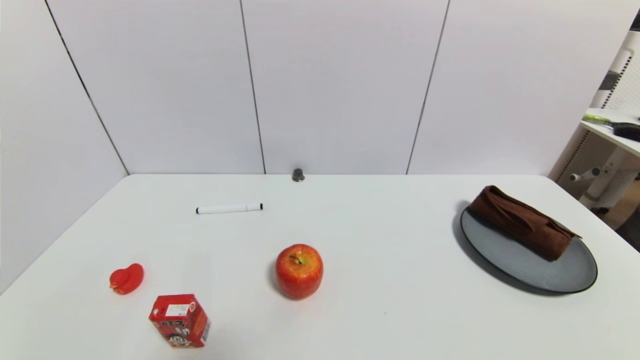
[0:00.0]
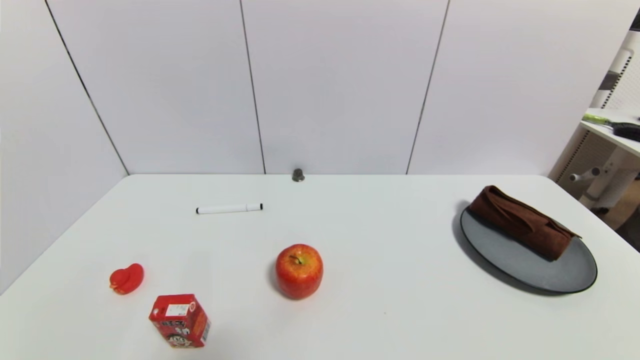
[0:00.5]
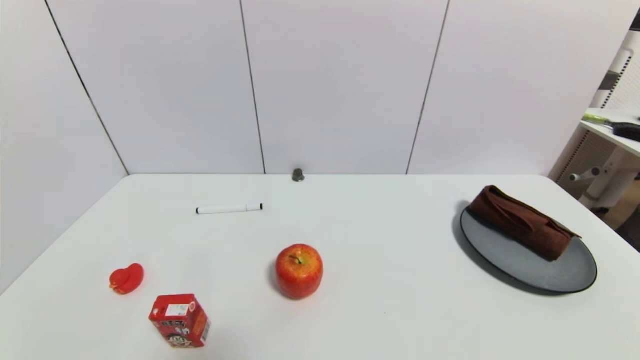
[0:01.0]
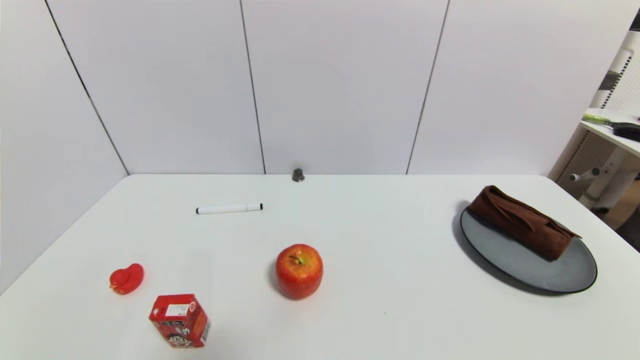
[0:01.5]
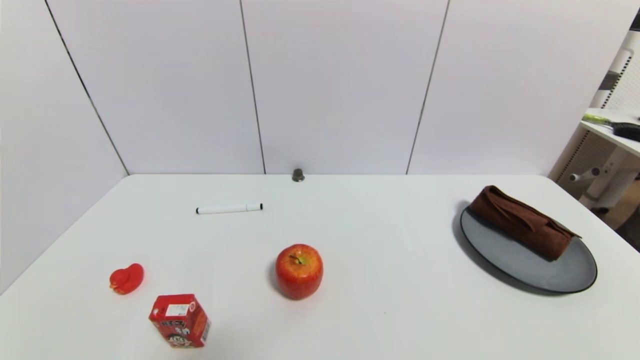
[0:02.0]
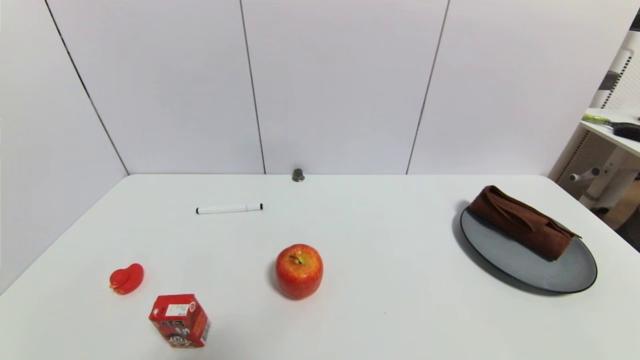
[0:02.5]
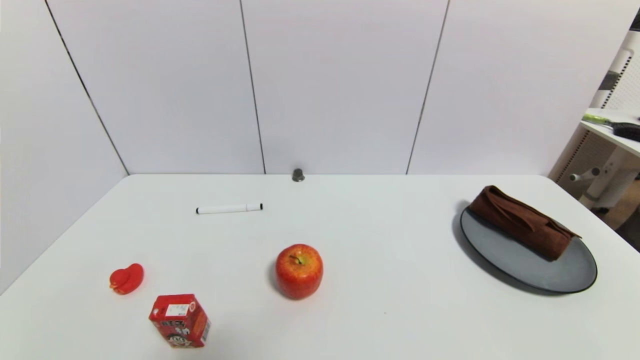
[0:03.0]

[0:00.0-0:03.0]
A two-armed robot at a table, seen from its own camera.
Task of the whole recording: use a gripper to pick the target object and place on the gray plate.
0:01.5 to 0:03.0: Both grippers stay put.

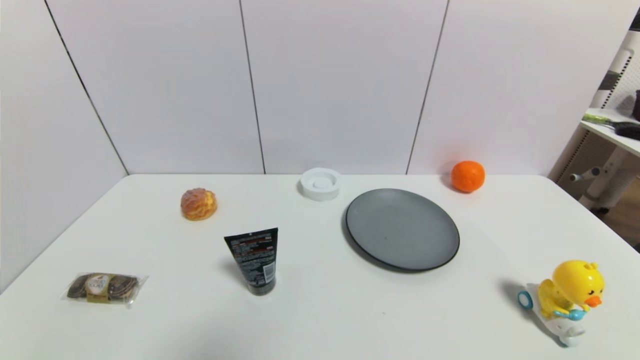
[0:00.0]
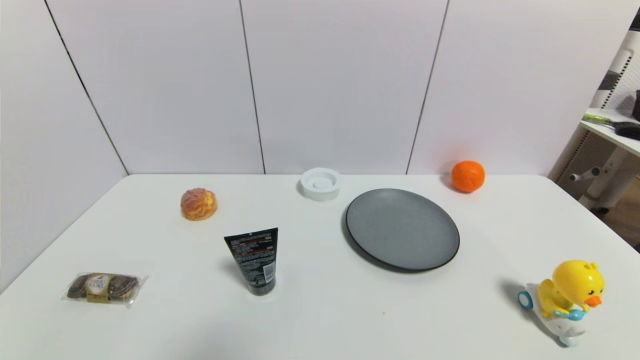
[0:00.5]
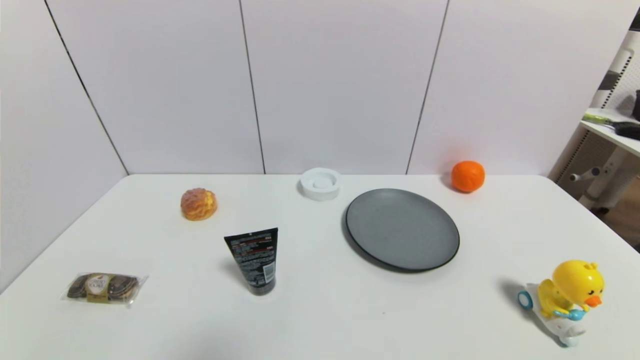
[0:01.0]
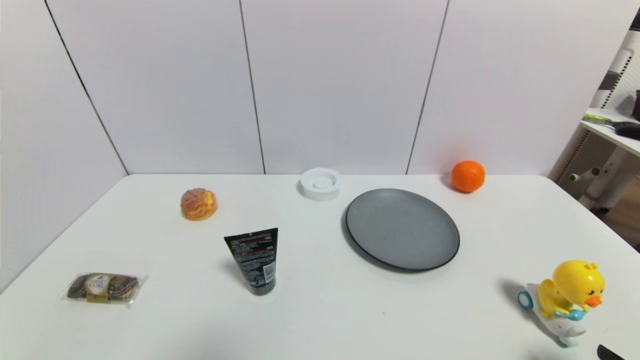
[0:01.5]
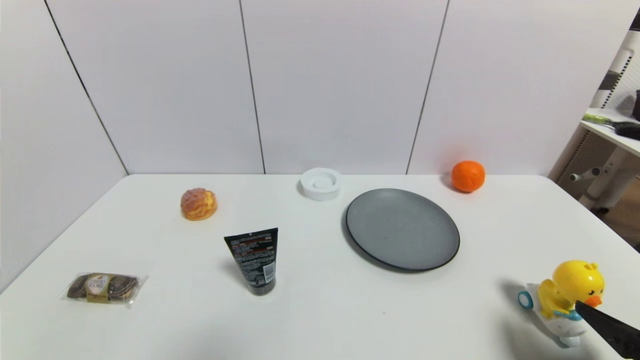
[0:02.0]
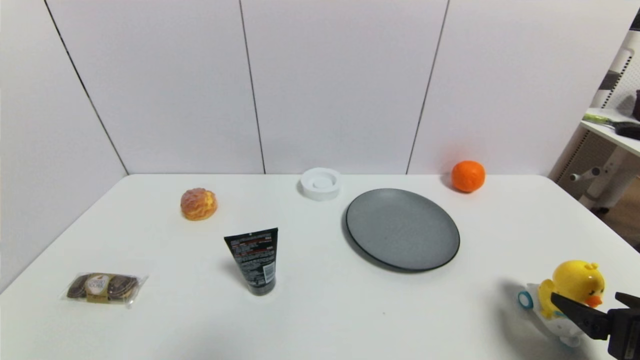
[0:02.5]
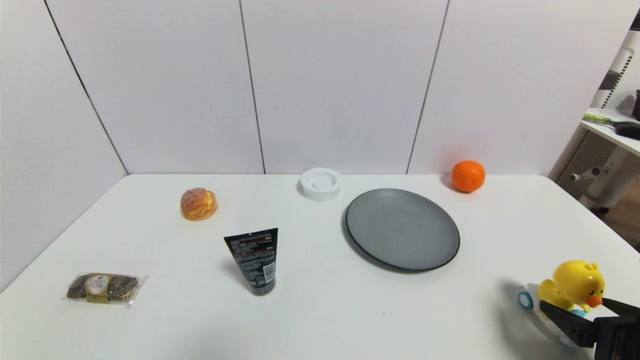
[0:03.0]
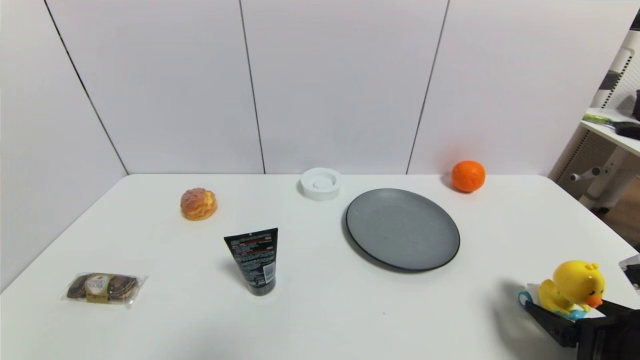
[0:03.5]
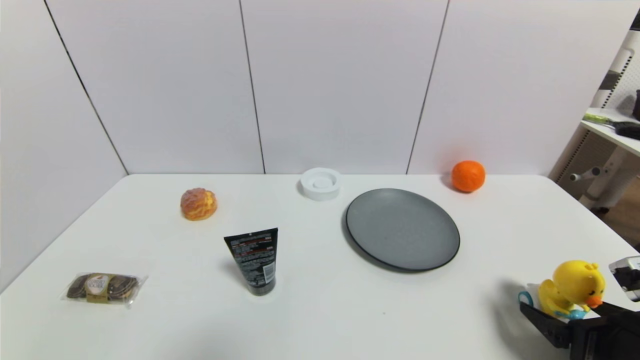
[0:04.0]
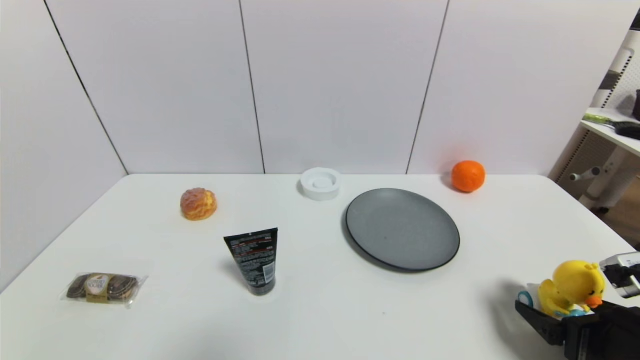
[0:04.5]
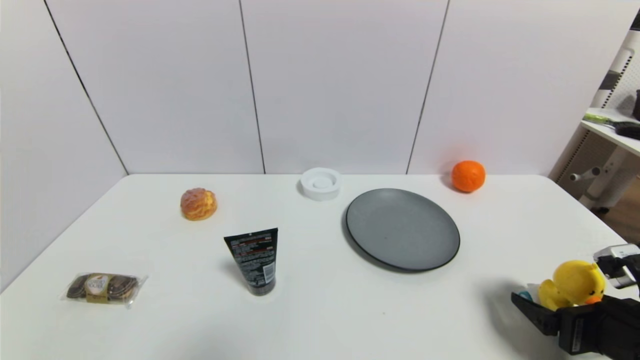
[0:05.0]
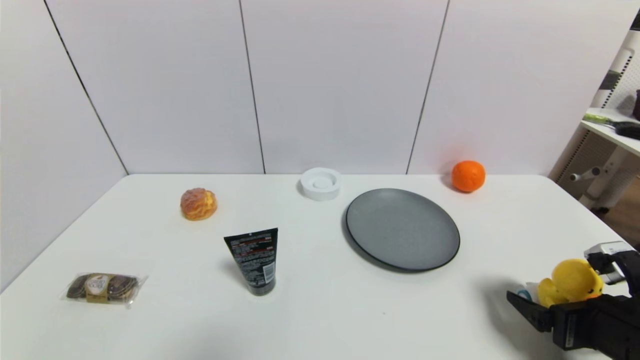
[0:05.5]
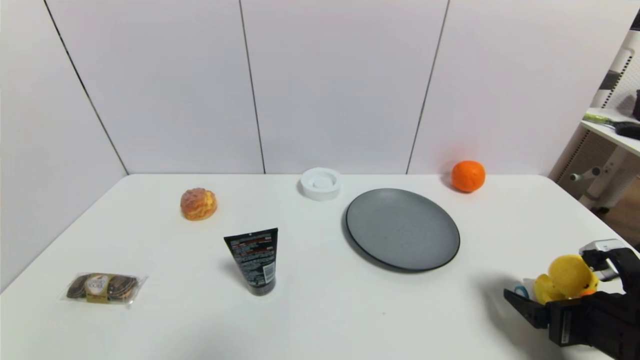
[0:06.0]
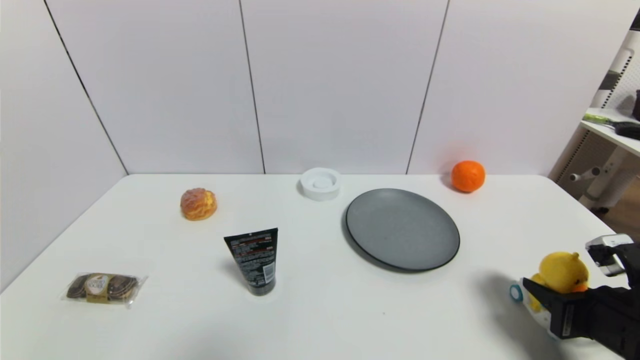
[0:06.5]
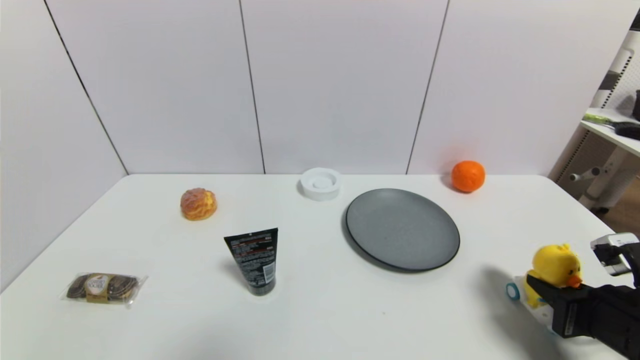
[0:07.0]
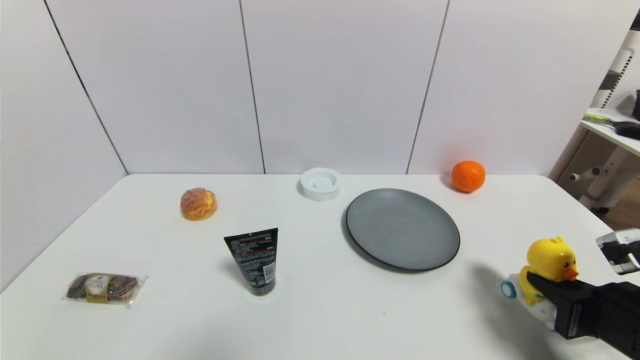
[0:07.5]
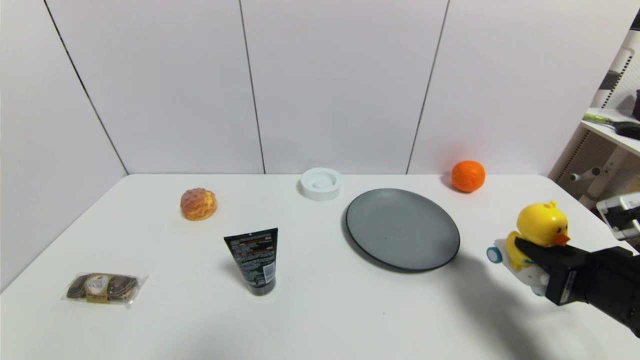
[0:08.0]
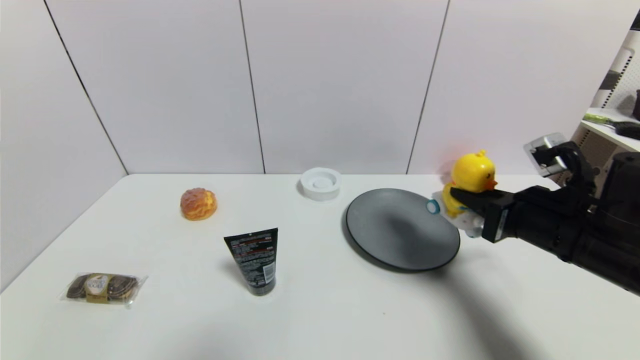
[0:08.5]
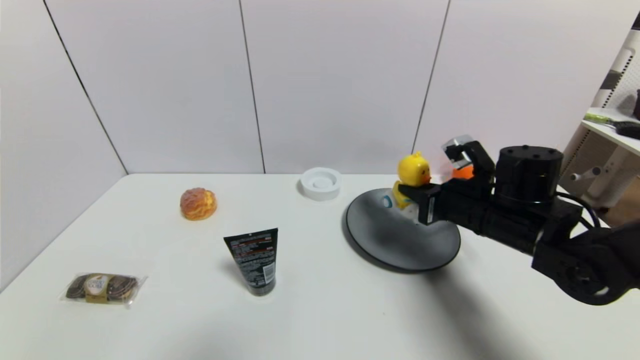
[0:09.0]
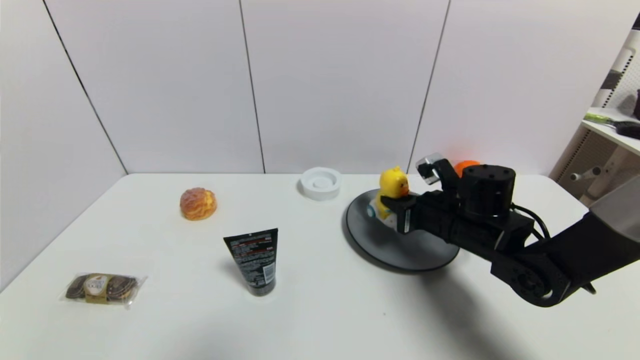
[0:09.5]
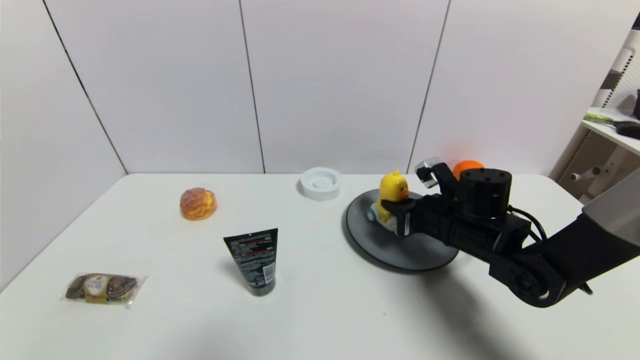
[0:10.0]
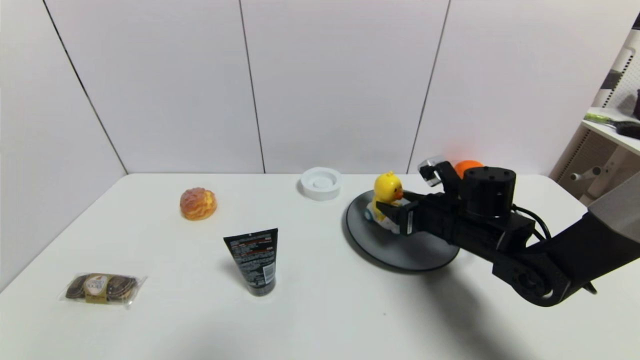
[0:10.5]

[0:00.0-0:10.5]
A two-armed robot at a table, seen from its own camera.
Task of the whole recording: use a gripper to pick the target object and place on the gray plate.
Step, 0:00.0 to 0:06.0: Grasp the duck toy with the right gripper.
0:00.0 to 0:02.0: The right gripper shifts some 10 cm forward and upward.
0:02.0 to 0:04.0: The right gripper ends up about 5 cm from where it was.
0:04.0 to 0:06.5: The right gripper closes.
0:06.5 to 0:08.5: The right gripper goes some 15 cm forward, upward and to the left.
0:08.5 to 0:10.5: The right gripper moves forward, downward and to the left, approximately 10 cm, and opens up.

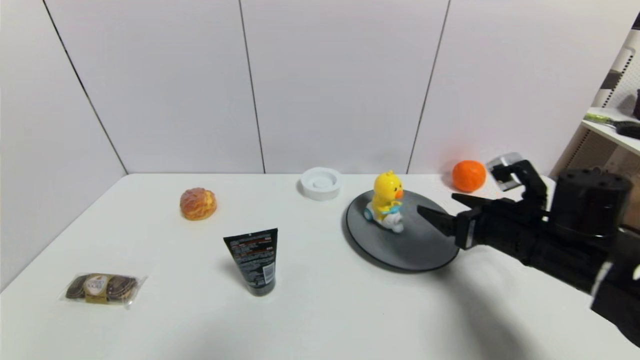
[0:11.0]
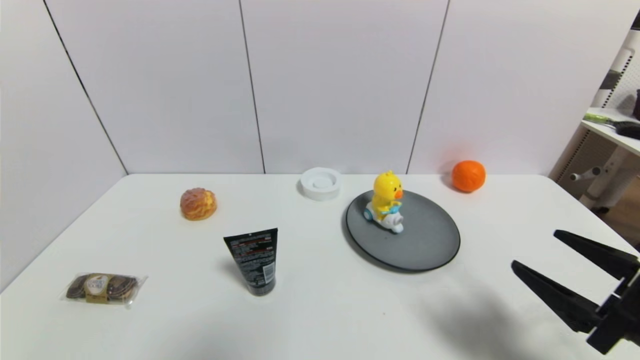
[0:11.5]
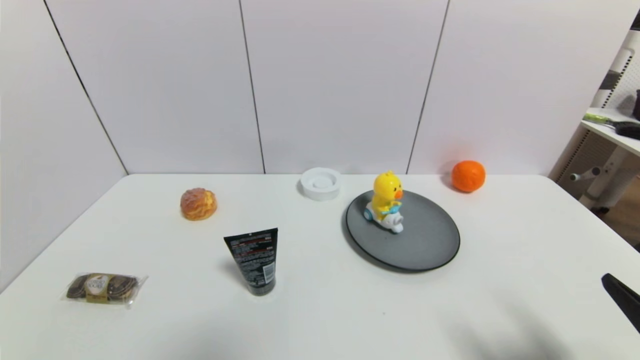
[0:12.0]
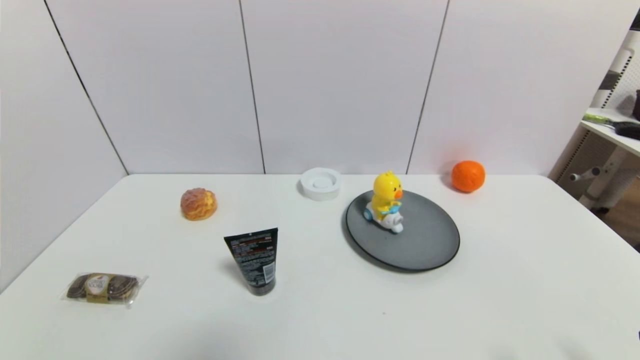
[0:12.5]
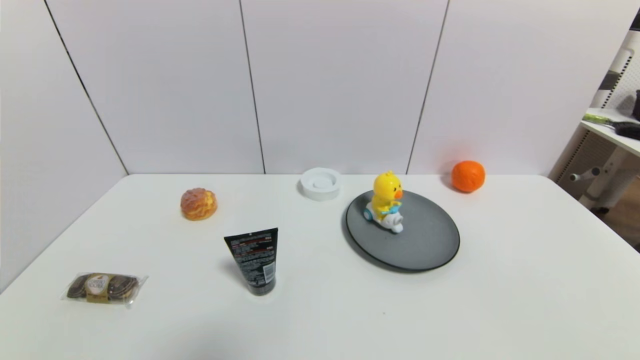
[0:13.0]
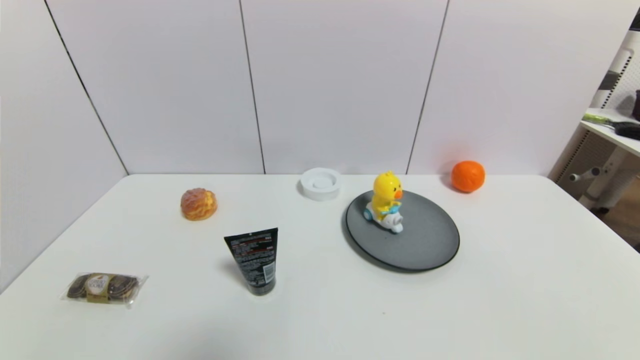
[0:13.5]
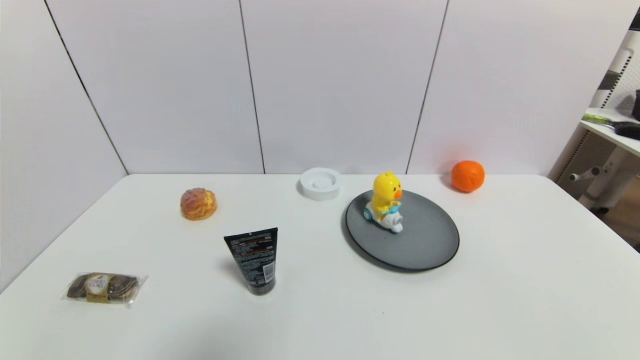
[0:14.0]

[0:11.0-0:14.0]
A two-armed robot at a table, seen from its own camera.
Task of the whole recording: use a gripper to pick the target object and place on the gray plate.
0:11.0 to 0:12.5: The right gripper shifts approximately 25 cm backward.
